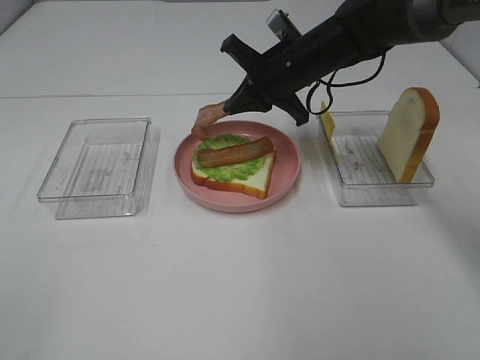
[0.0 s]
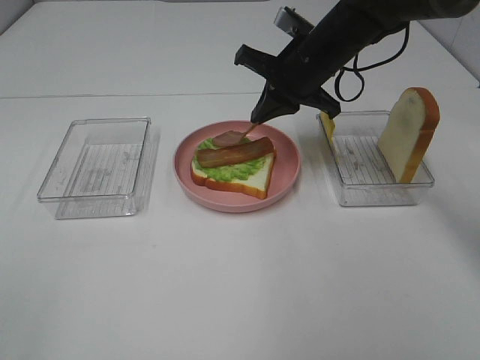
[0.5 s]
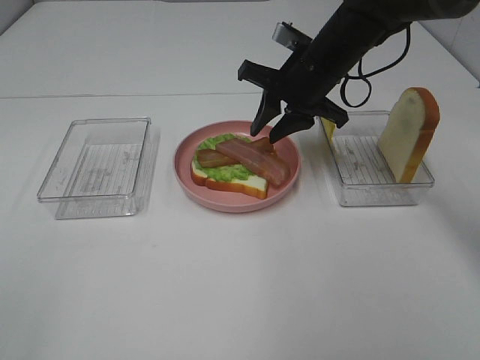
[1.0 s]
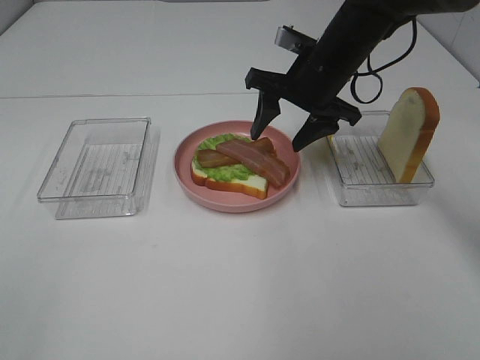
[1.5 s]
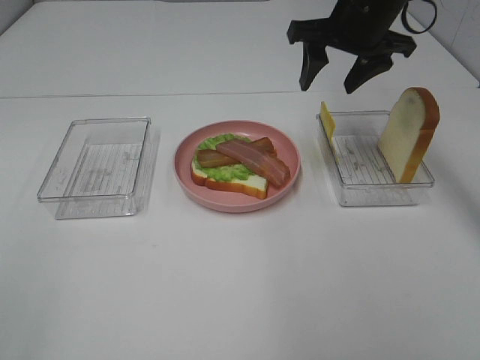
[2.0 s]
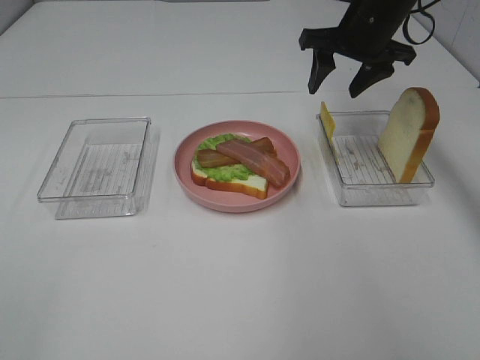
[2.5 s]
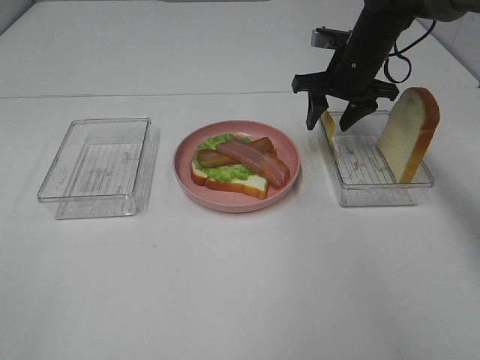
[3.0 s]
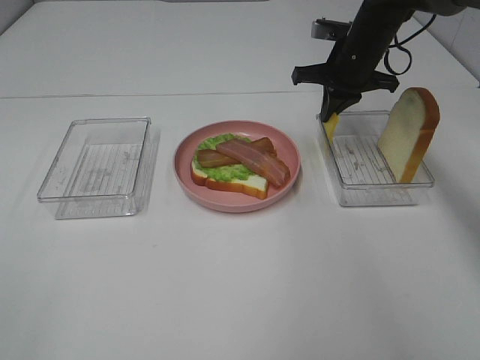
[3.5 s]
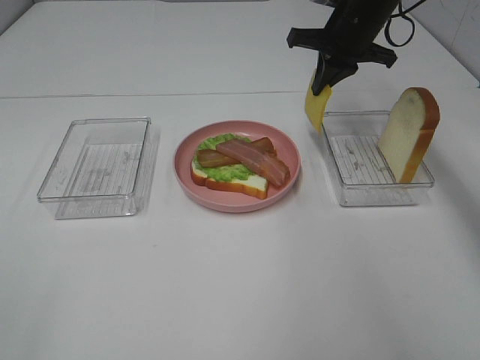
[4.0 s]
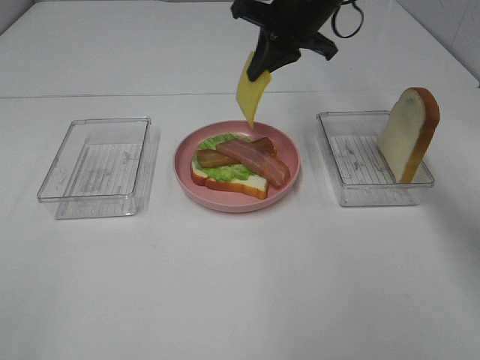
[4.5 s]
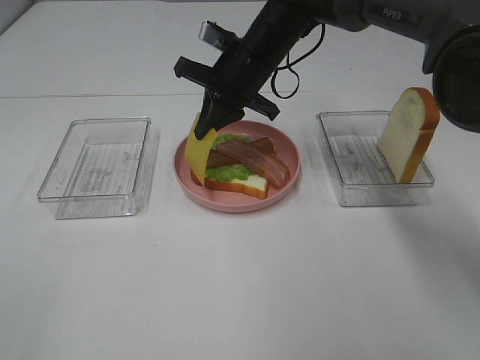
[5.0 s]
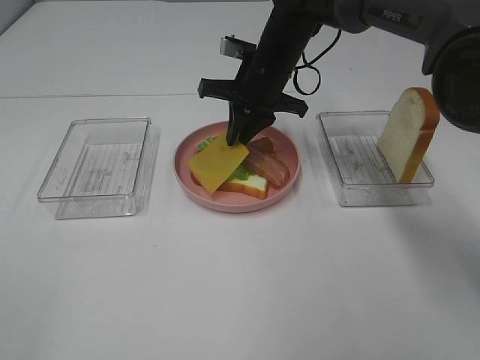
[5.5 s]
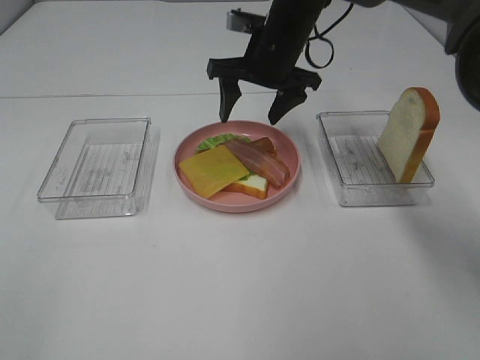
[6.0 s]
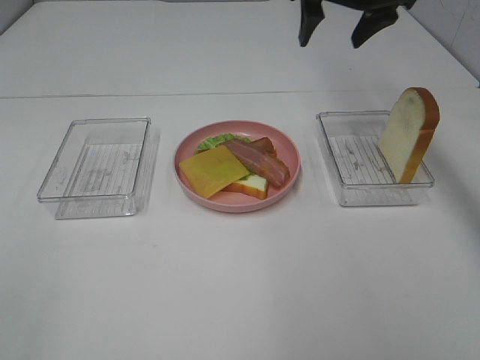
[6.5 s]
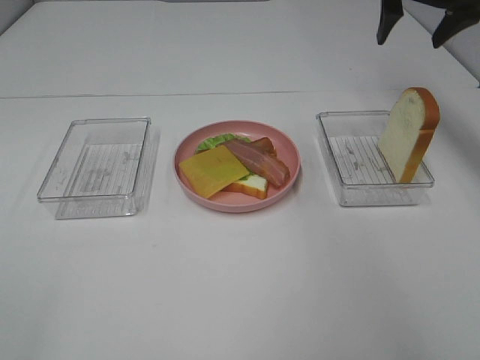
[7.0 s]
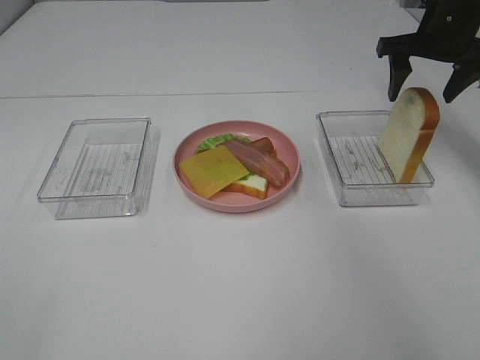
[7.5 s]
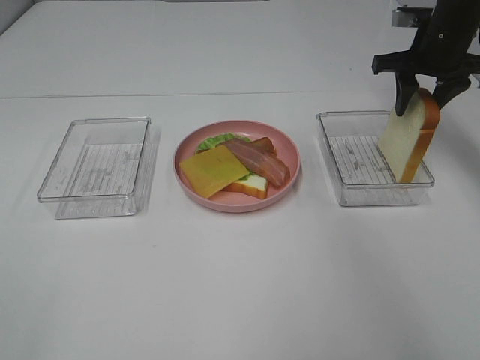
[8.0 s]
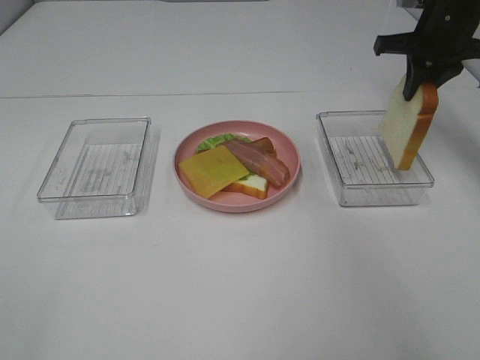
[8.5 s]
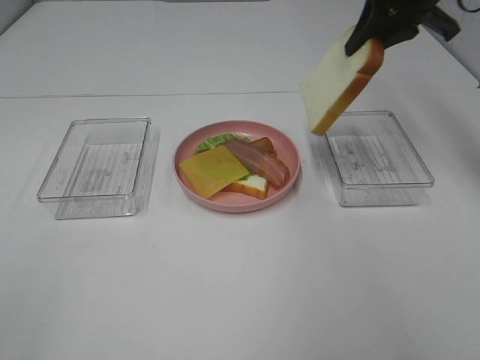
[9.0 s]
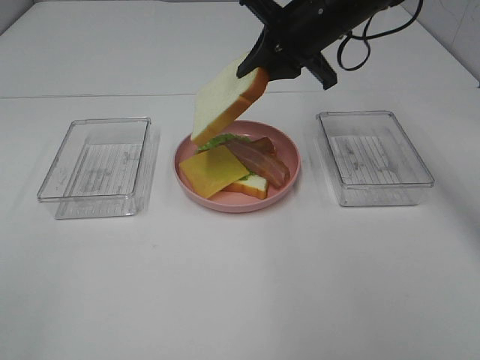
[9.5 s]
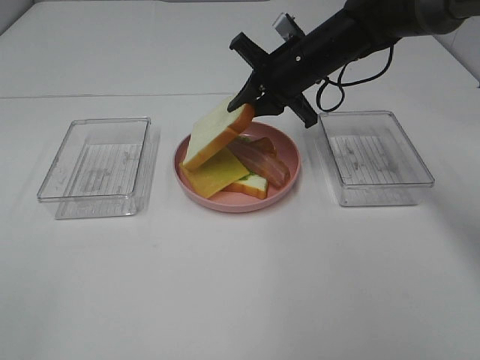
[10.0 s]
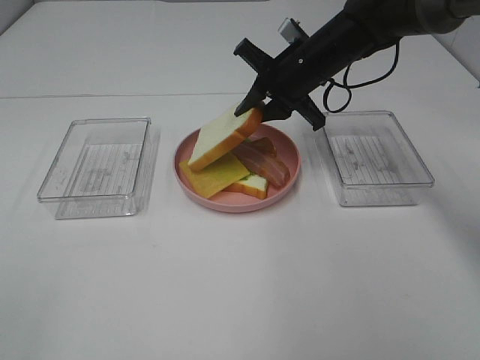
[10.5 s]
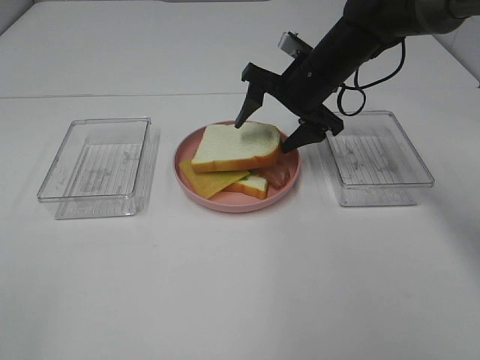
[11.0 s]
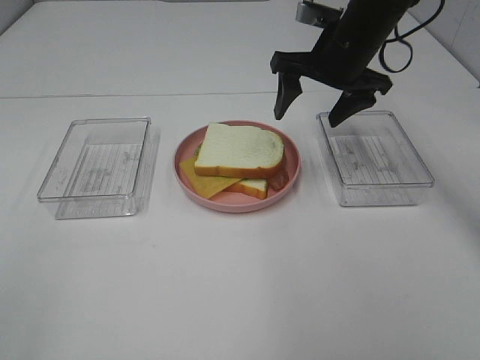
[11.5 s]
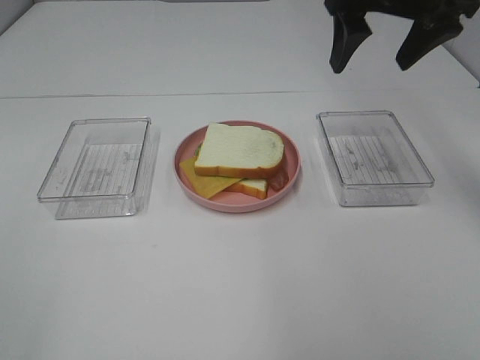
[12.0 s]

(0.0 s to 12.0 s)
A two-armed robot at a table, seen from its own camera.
Task of the whole recording: Make sandwiches.
Step, 1.5 s - 4.0 s: Right hand:grab the cheese slice.
Step, 4.5 s - 5.5 s: Right hand:place the cheese slice on top of the bacon.
Step, 6.0 s - 8.0 s: Right hand:grab the bread slice.
Step, 8.5 s - 11.5 s: Right hand:place the bread slice on the cheese slice.
0.0 s - 2.0 s: The right gripper goes approximately 10 cm upward and to the right, and opens up.
2.0 s - 4.0 s: The right gripper heads forward, covering roughly 5 cm, and closes.
4.0 s - 6.0 s: The right gripper is displaced to the left by approximately 10 cm, and opens.
6.0 s - 8.0 s: The right gripper moves to the right, roughly 20 cm, and closes.
8.0 s - 10.0 s: The right gripper goes roughly 15 cm to the left.
10.0 s - 12.0 s: The right gripper shifts some 20 cm upward, backward and to the right, and opens its fingers.

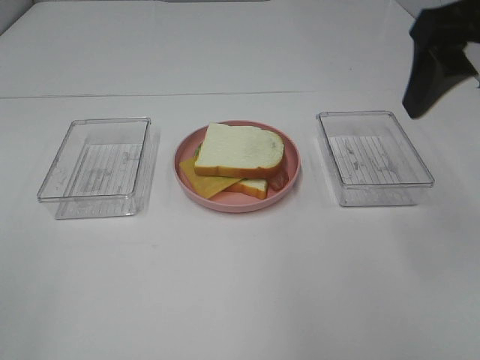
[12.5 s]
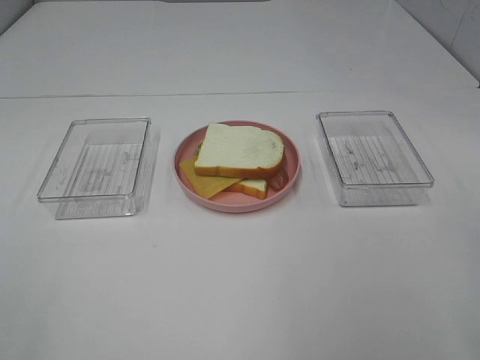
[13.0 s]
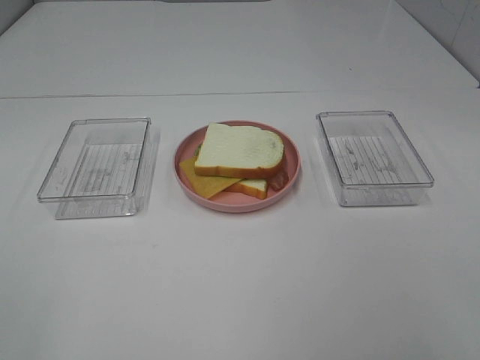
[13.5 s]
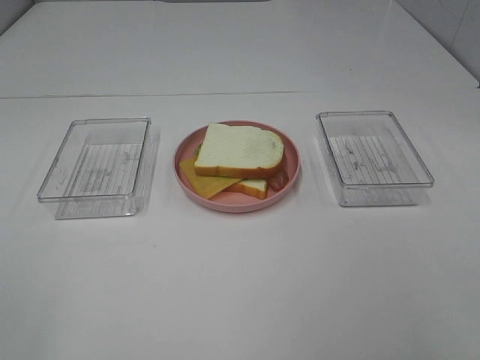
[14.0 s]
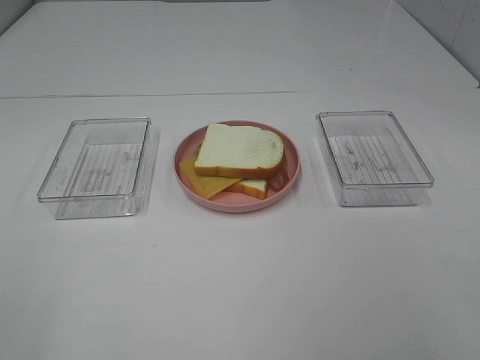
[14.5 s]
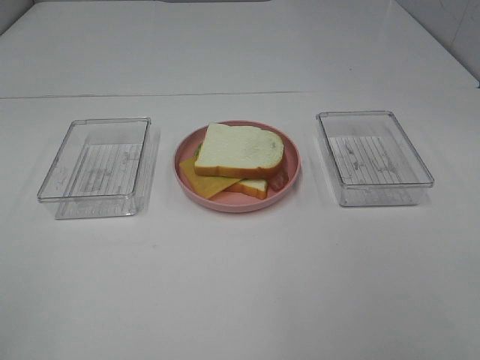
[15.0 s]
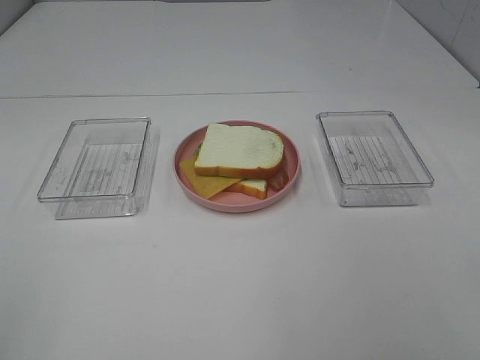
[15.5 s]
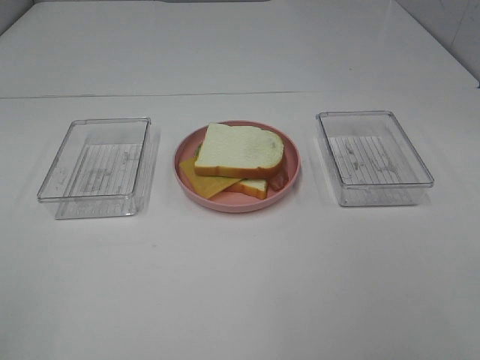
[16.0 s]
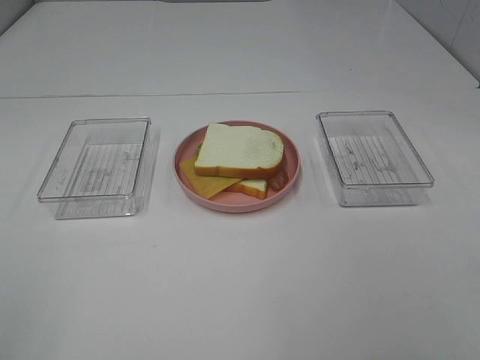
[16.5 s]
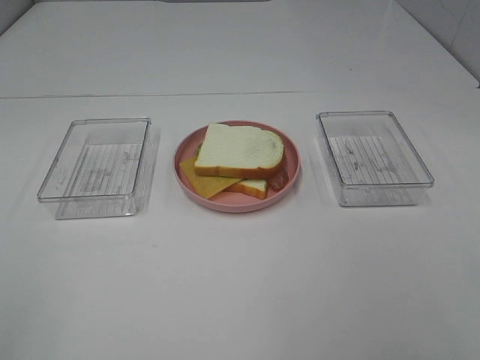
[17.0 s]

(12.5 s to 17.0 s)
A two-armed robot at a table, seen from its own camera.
Task of the whole recording: Make sandwiches.
12.5 s - 14.5 s: The right gripper heads backward, covering approximately 25 cm.

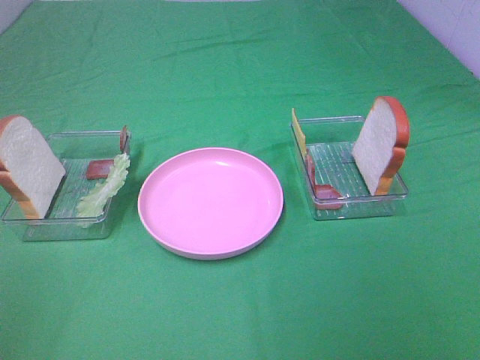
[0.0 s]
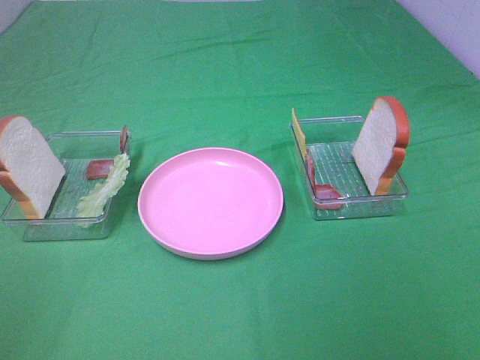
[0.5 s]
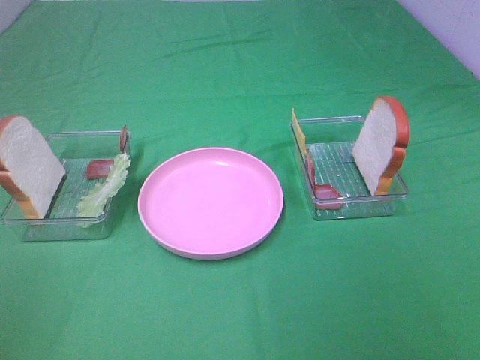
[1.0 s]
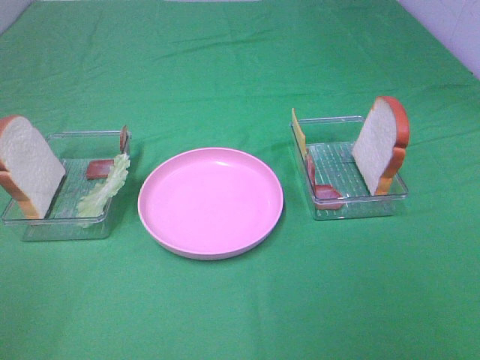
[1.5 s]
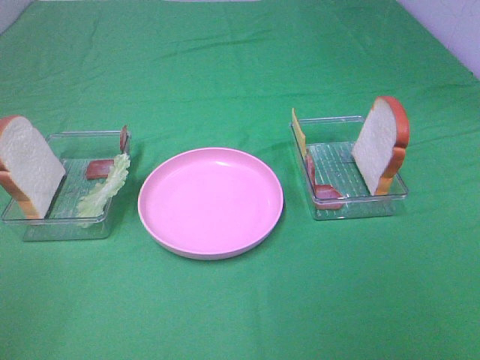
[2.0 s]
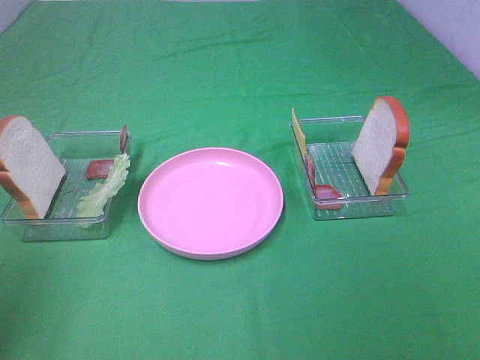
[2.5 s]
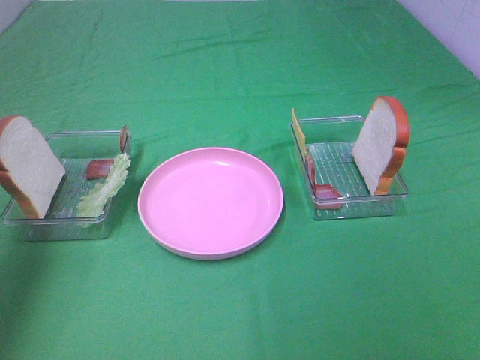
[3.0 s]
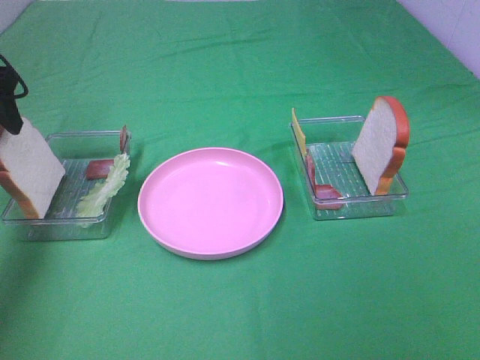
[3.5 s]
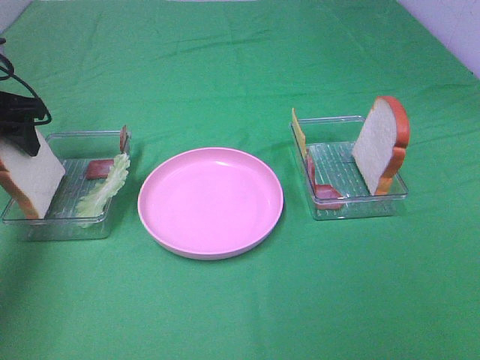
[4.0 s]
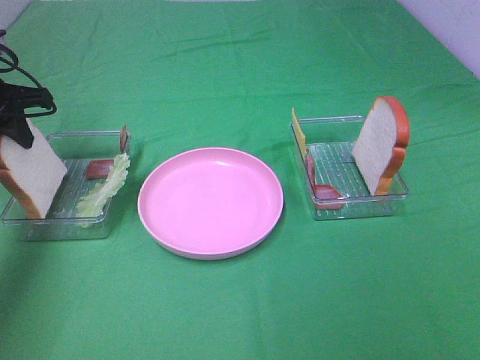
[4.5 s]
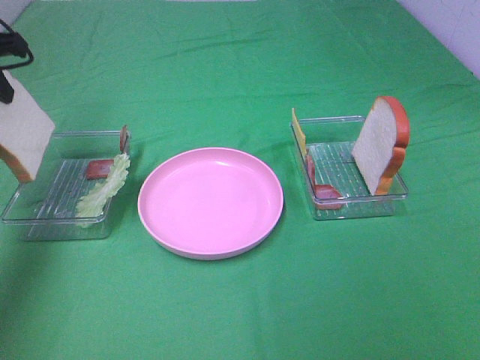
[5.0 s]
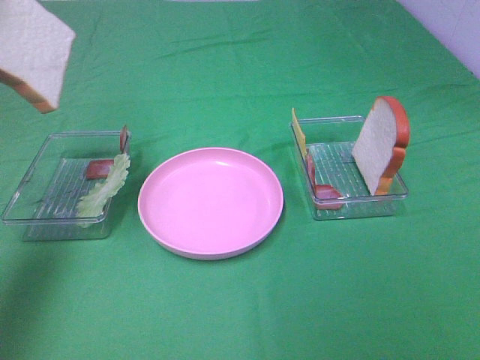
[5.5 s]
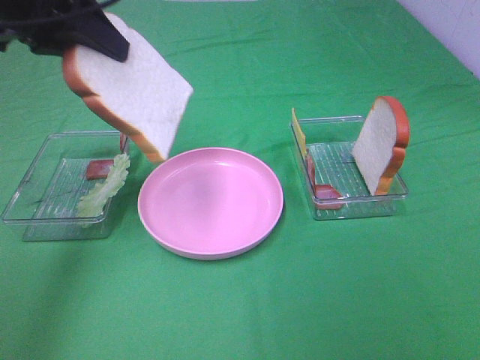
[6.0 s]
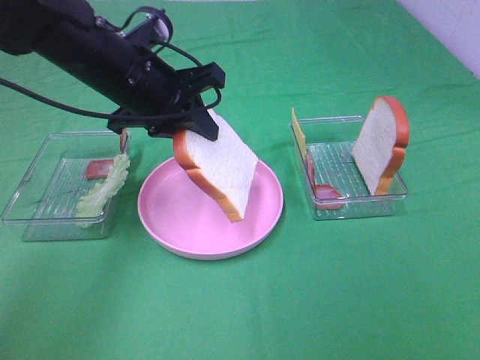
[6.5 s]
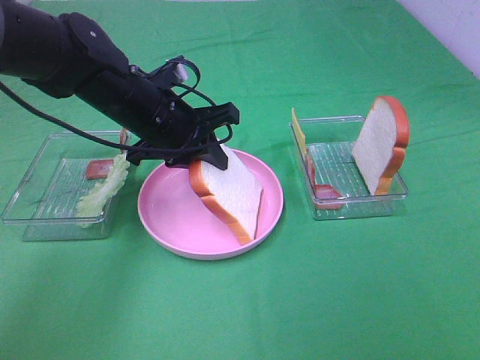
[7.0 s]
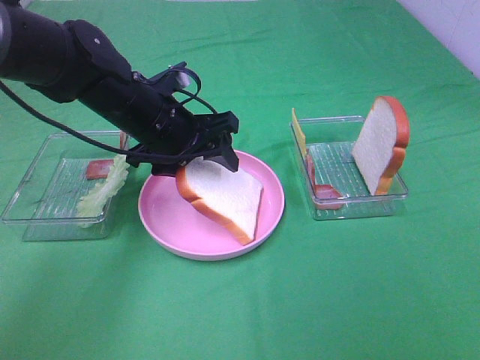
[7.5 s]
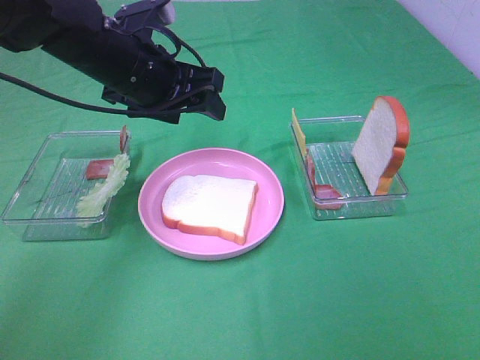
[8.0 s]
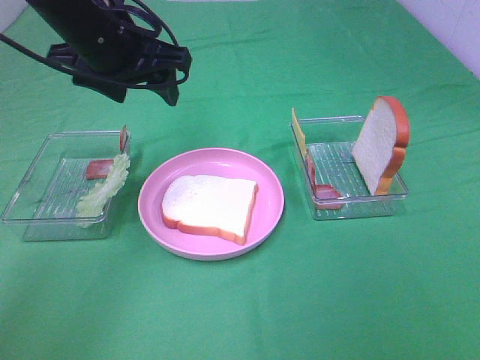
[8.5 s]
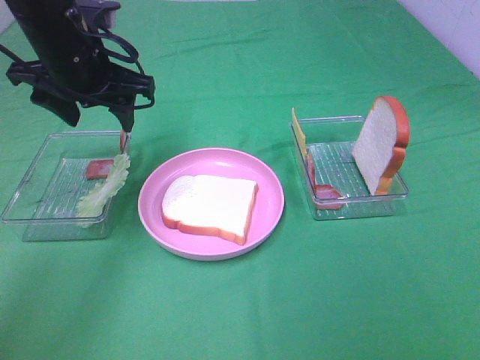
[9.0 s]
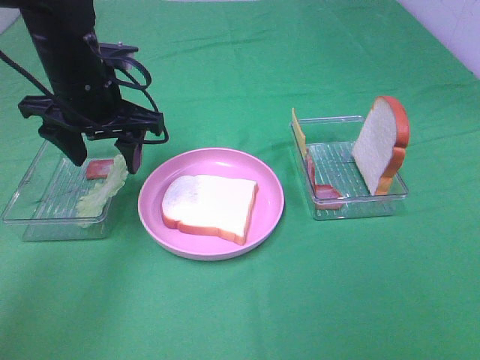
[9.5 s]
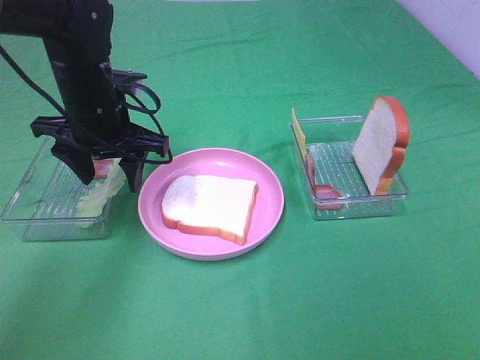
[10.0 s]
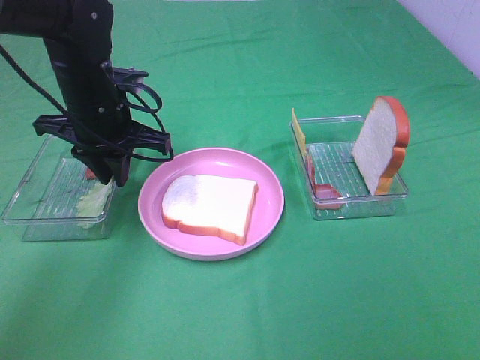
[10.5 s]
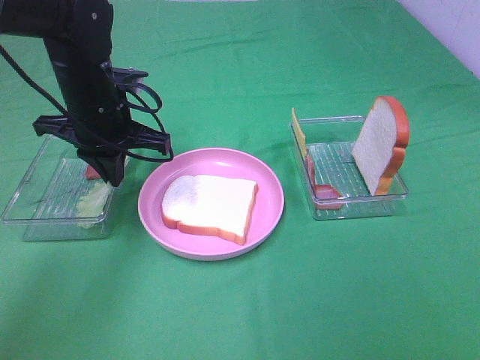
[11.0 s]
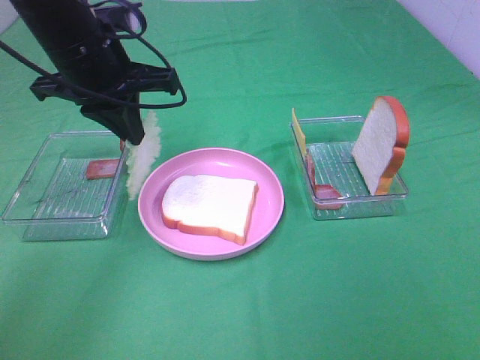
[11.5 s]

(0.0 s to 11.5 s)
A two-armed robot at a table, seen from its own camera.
Task of the whole recording: Make sandwiches.
Step, 0.0 s - 4.0 s: Left hand:grab the bread slice.
Step, 4.5 s - 7.5 s: Left hand:place the bread slice on the plate.
Step, 8.0 s - 11.0 s: Left hand:grab the lettuce slice.
0.0 s - 2.0 s: Both grippers stay about where they are.
2.0 s - 4.0 s: The left gripper shifts about 40 cm forward.
4.0 s - 6.0 s: The left gripper travels to the right, upward and backward by some 20 cm, and closes up.
6.0 s - 7.5 s: The left gripper heads downward and to the right, covering roughly 20 cm, and opens up.
7.5 s - 9.5 s: The left gripper is displaced to the left by approximately 5 cm.
9.5 s - 11.5 s: The left gripper goes some 5 cm upward, and closes.
